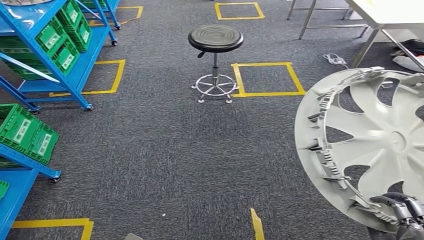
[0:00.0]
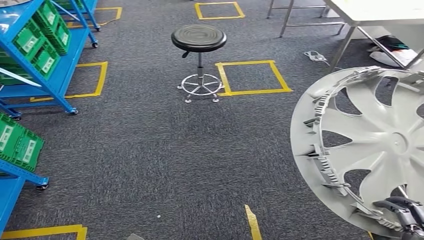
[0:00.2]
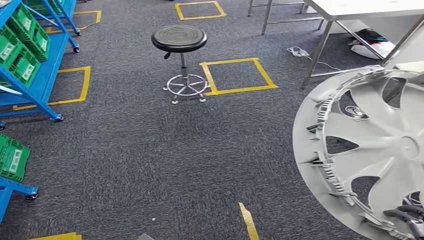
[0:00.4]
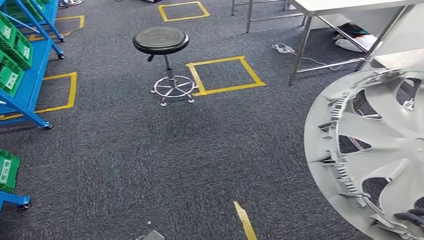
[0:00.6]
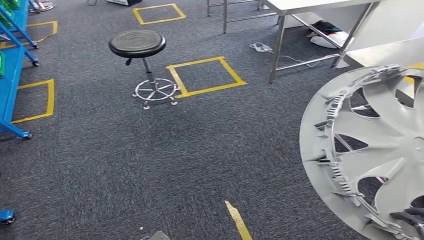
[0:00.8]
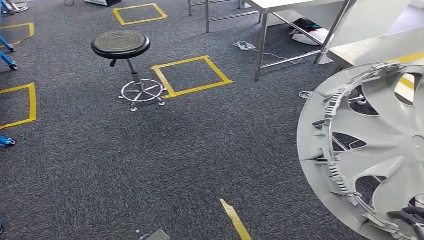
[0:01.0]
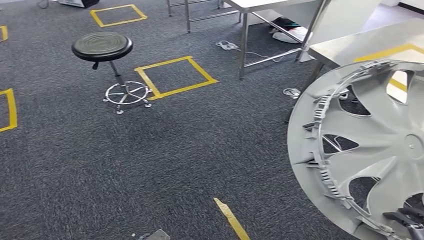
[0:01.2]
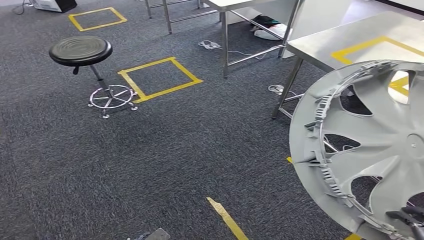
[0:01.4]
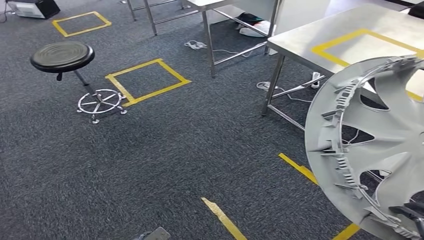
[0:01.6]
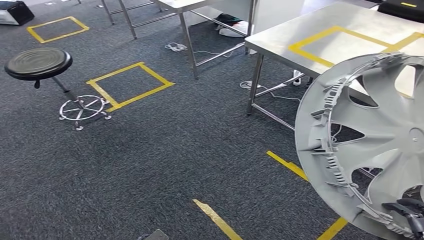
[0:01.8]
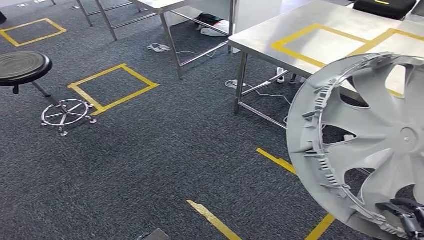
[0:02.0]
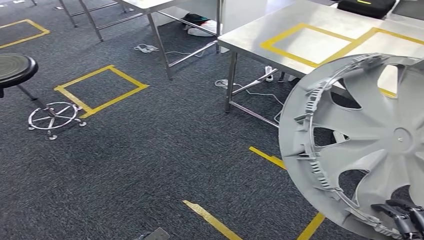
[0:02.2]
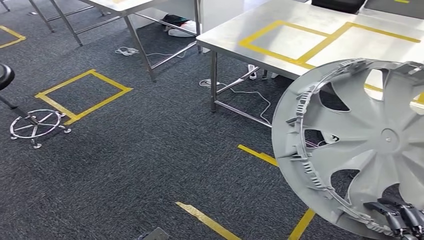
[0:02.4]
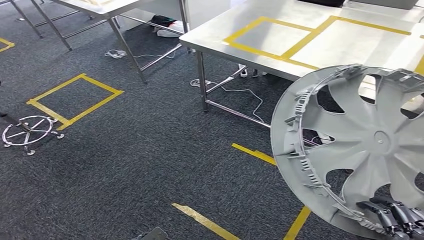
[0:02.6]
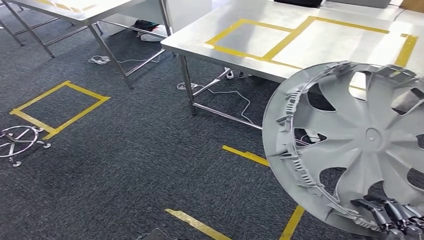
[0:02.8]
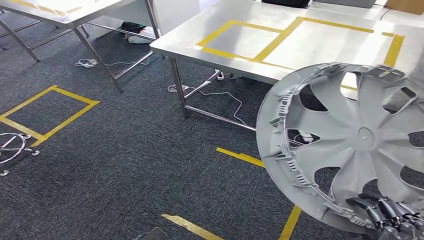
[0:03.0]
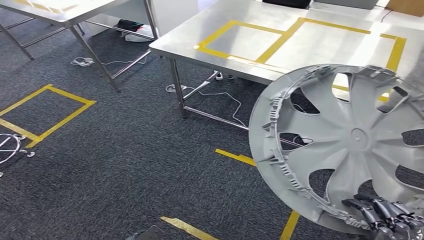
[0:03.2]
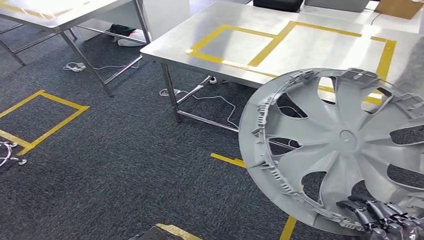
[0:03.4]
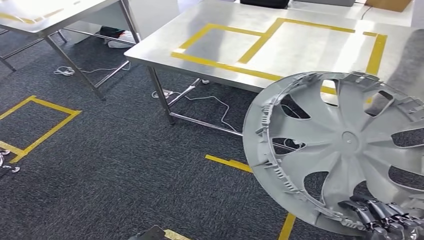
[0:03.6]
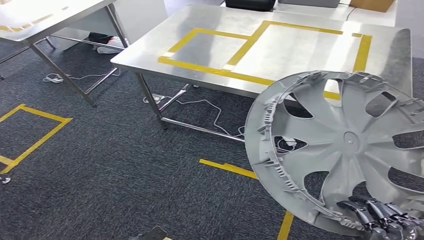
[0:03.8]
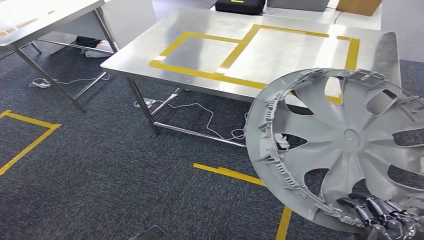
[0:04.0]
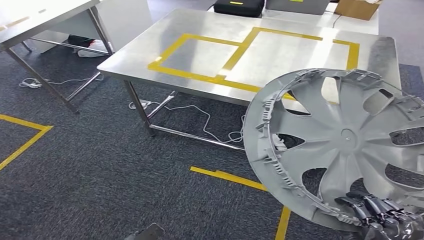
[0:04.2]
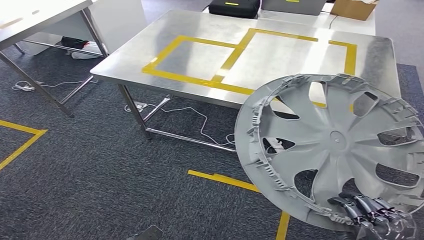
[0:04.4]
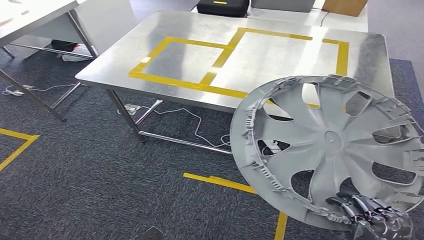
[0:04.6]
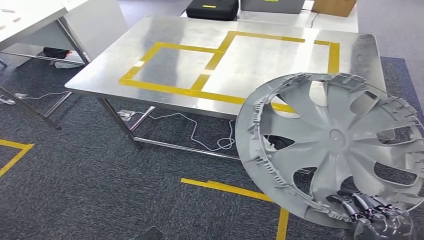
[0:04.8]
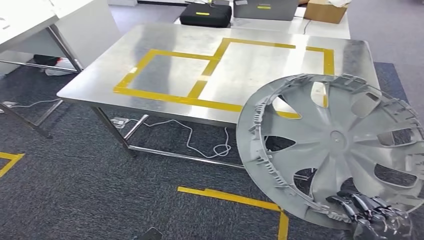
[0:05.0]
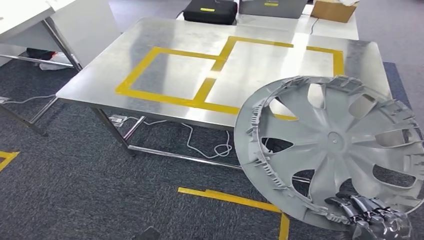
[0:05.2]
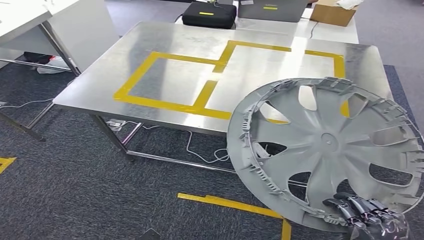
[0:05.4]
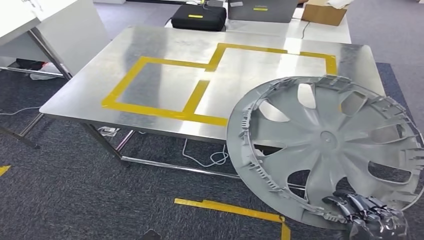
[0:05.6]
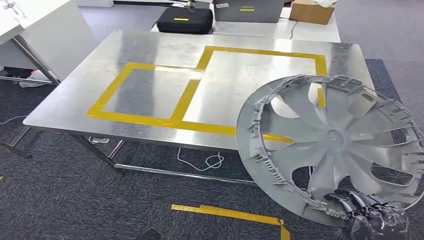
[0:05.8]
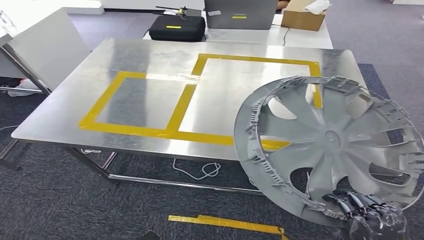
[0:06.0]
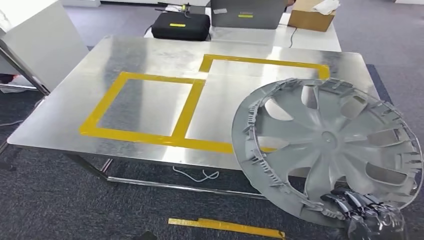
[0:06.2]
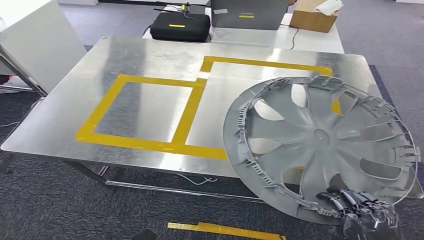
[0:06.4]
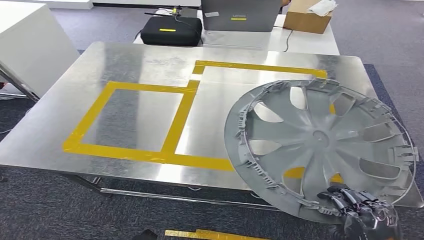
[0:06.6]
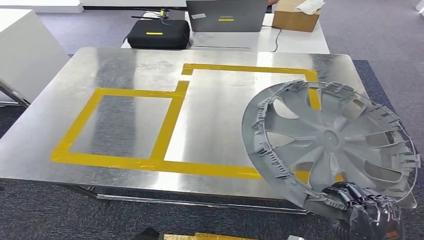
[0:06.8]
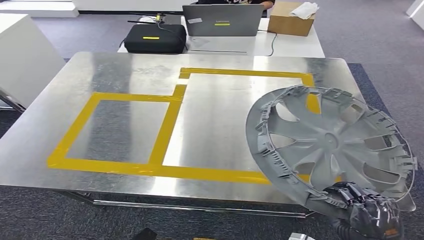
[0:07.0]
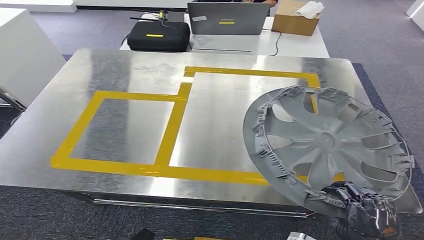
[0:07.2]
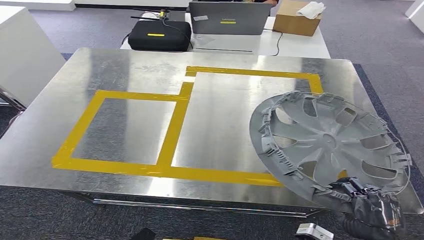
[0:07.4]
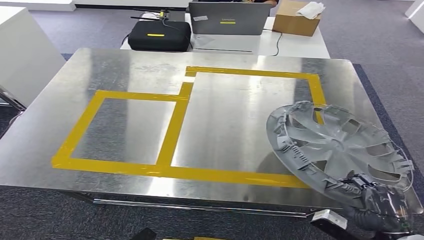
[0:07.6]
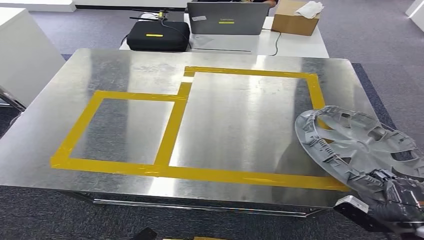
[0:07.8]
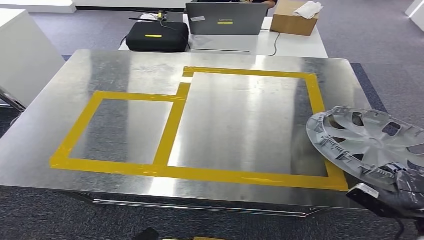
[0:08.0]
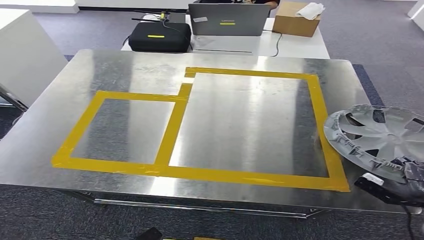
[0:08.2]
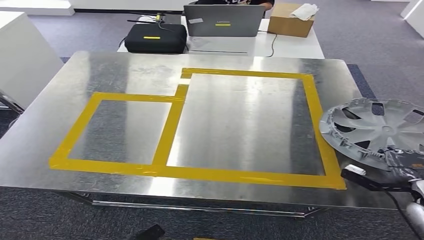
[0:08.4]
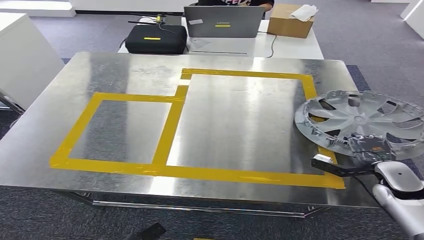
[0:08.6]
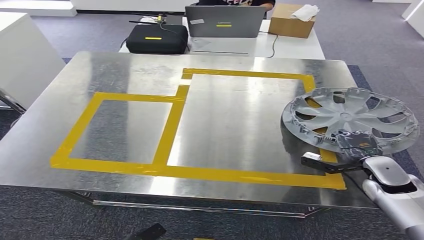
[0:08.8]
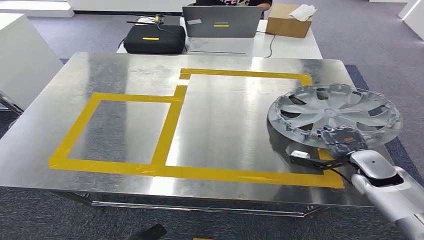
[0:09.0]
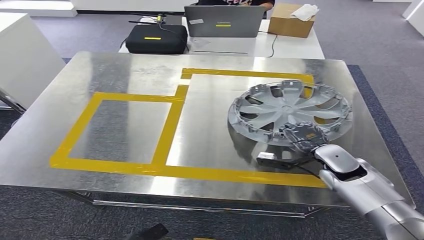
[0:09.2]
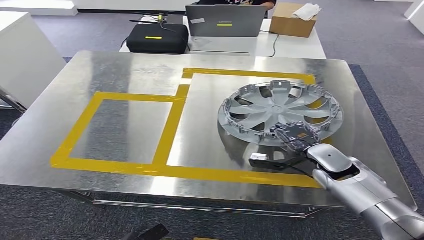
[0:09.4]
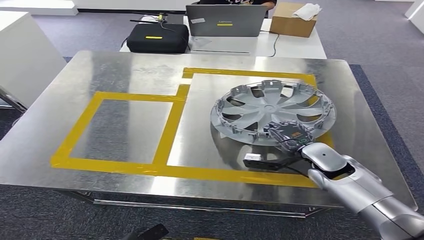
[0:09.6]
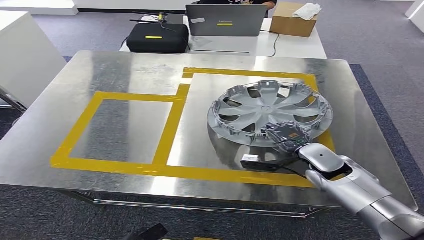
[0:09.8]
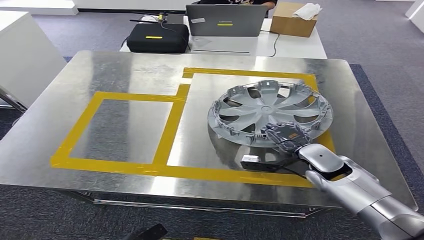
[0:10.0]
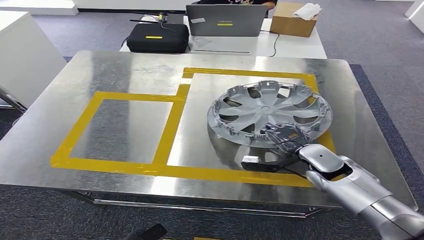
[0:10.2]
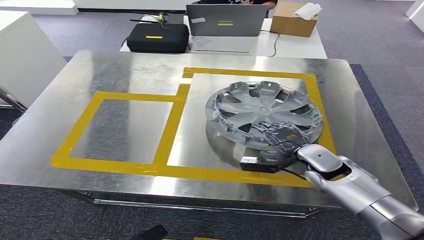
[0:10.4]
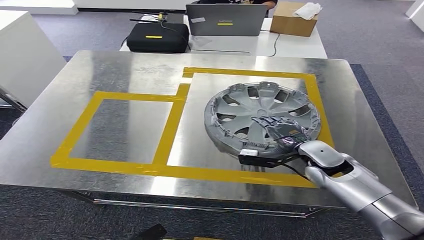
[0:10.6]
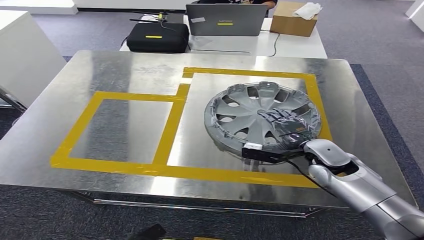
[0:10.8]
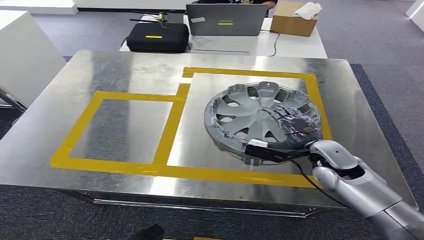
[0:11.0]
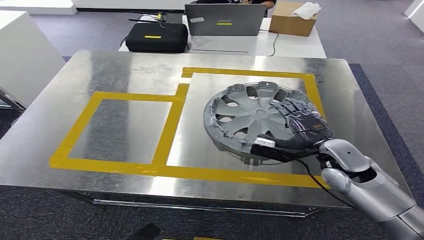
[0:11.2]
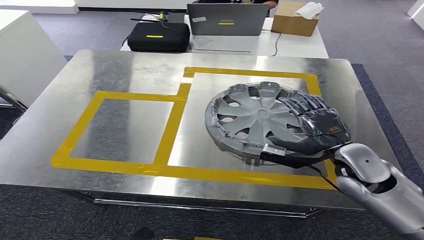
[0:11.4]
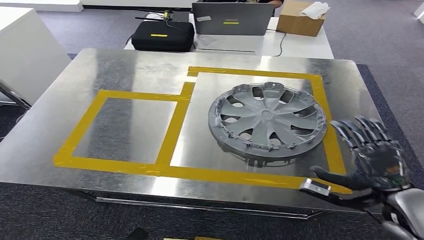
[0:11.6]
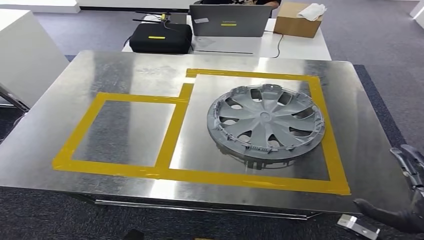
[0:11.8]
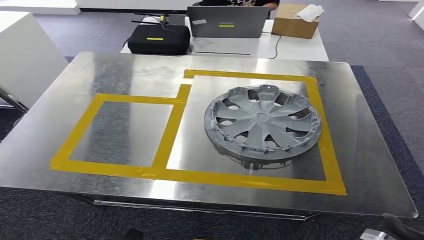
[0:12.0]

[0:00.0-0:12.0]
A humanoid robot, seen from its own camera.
Step, 0:00.0 to 0:06.8: Bring the small component to the front of the workbench.
0:10.4 to 0:12.0: The right hand goes about 30 cm backward and to the right. The left hand is displaced backward by roughly 5 cm.

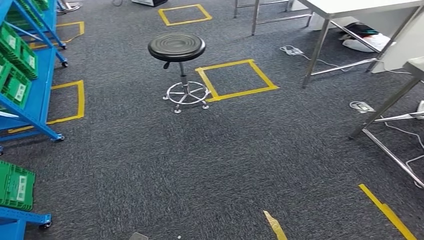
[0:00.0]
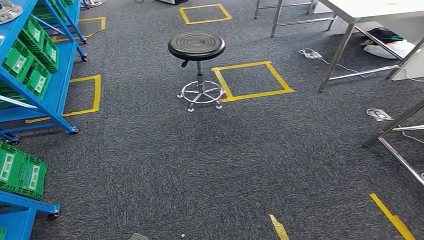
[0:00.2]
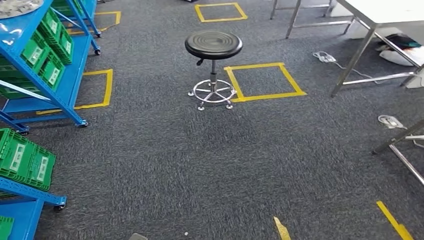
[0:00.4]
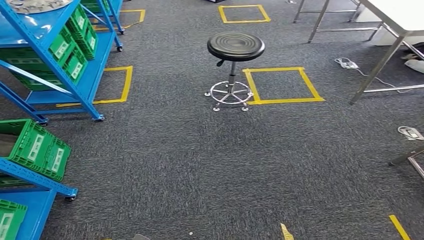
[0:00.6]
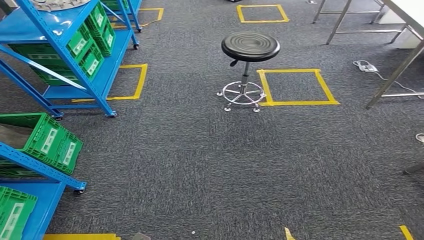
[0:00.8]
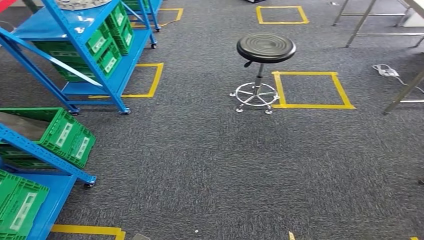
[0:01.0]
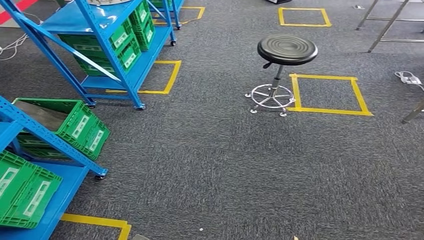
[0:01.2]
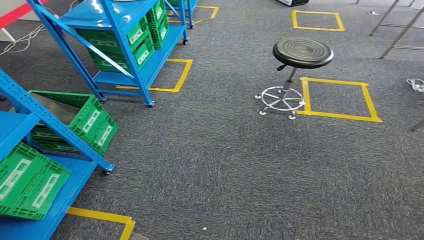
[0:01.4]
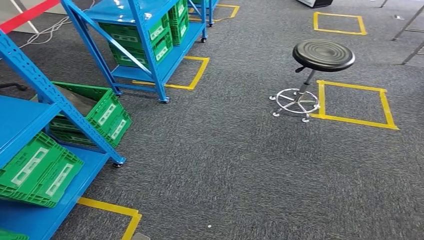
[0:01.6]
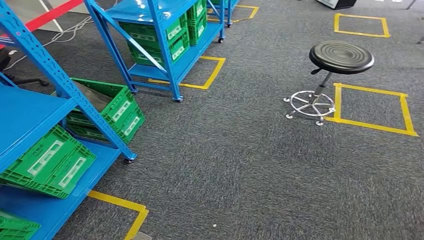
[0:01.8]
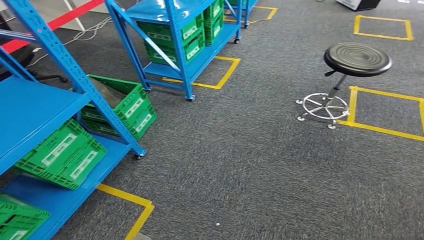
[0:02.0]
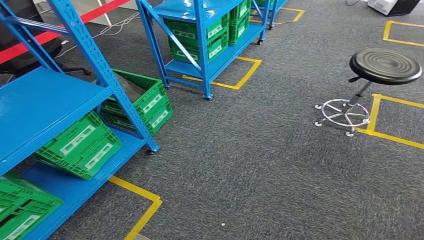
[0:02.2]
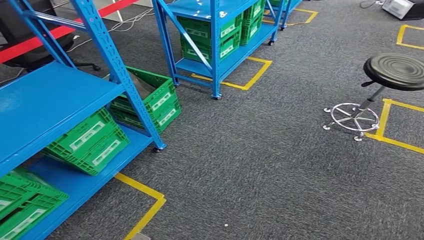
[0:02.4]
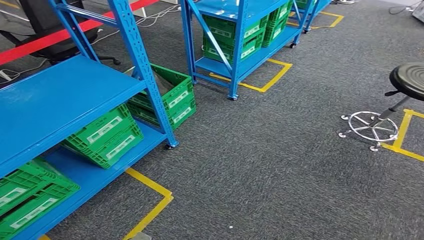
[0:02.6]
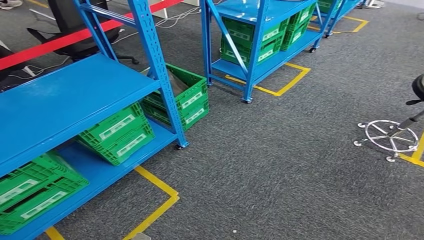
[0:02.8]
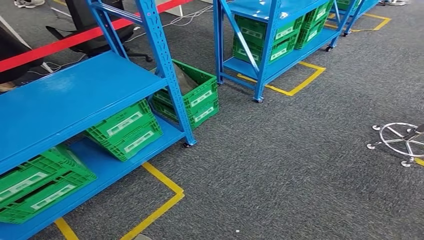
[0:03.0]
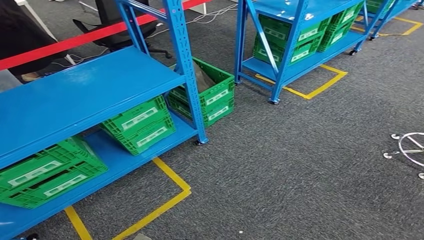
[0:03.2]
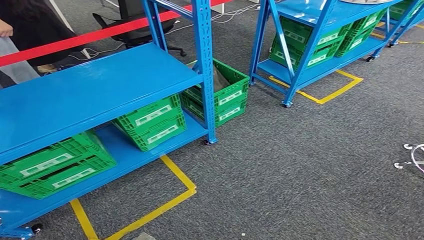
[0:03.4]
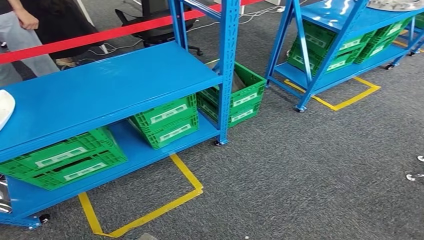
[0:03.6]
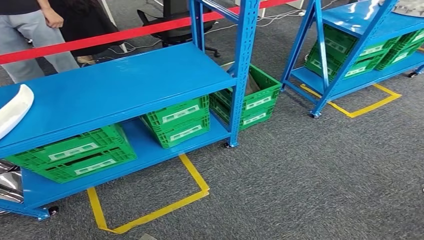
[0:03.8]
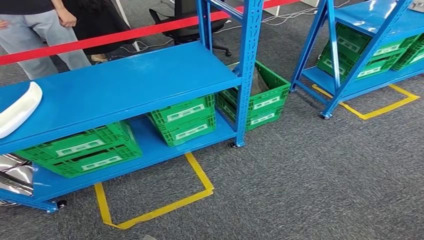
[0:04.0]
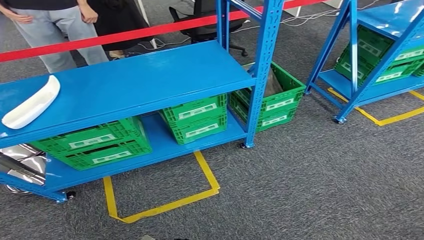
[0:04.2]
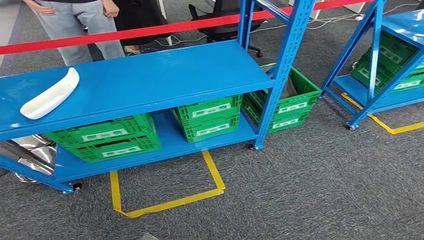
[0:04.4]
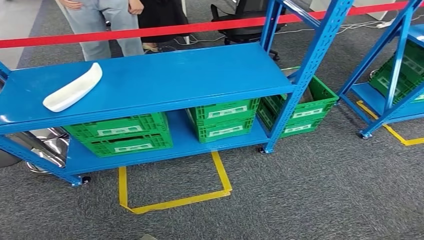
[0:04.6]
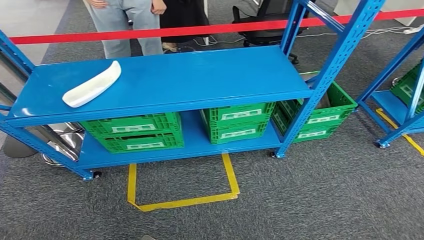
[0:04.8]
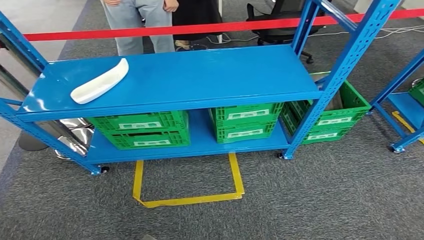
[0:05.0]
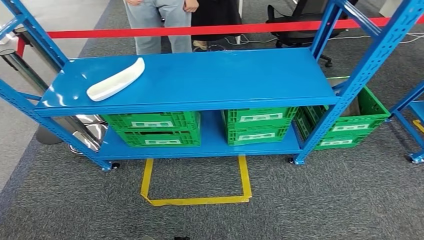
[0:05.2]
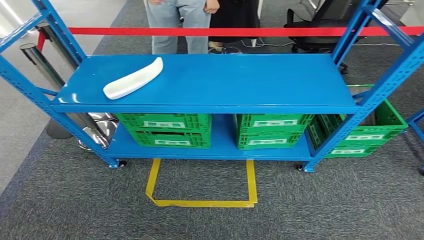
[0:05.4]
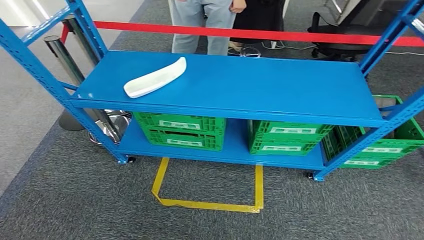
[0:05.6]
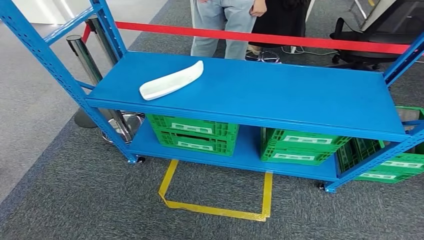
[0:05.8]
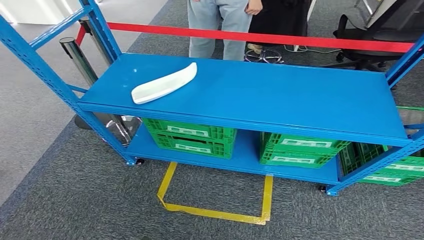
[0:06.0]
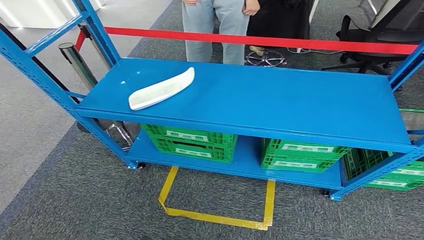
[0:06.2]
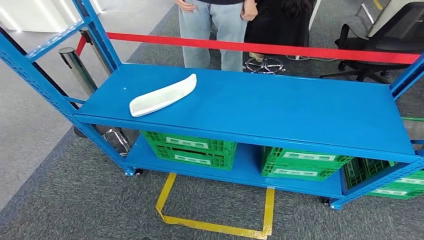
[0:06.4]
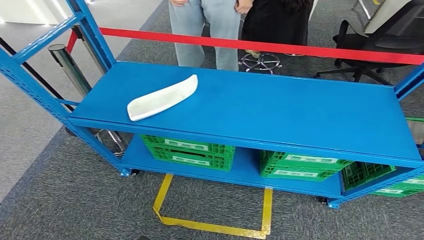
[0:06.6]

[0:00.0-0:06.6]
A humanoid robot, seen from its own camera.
Step, 0:00.0 to 0:06.6: Move to the initial position of the workbench.
